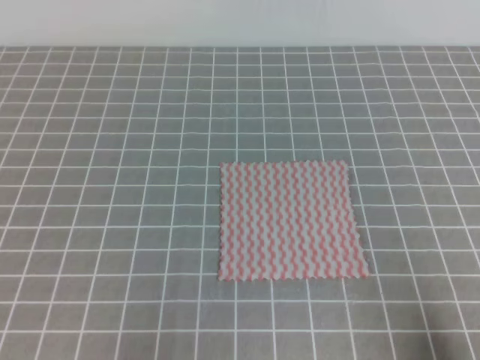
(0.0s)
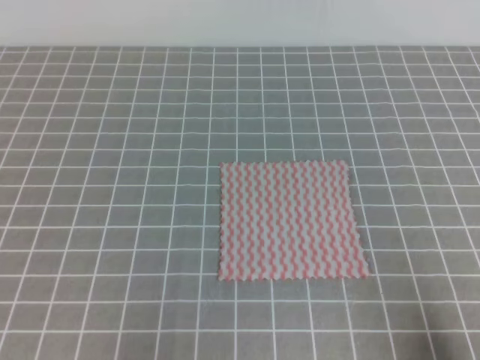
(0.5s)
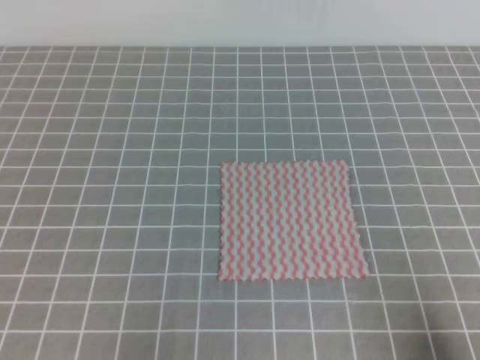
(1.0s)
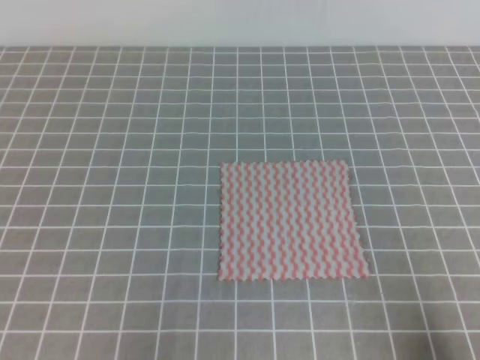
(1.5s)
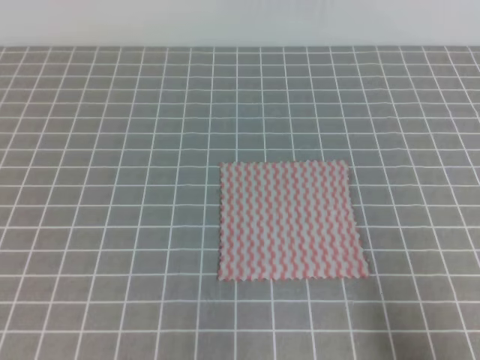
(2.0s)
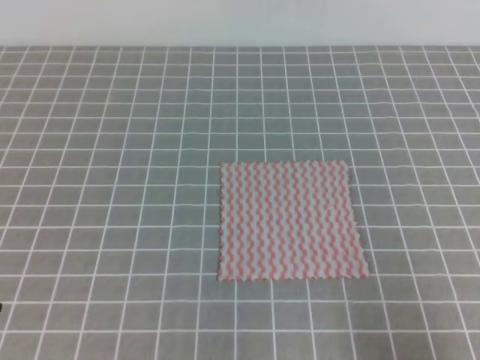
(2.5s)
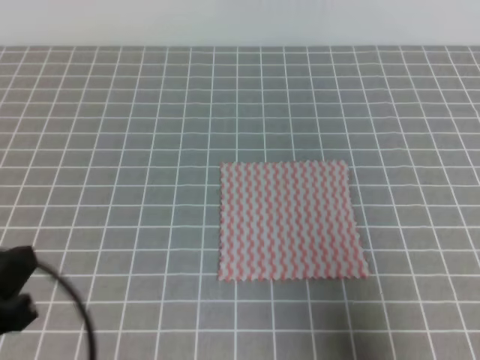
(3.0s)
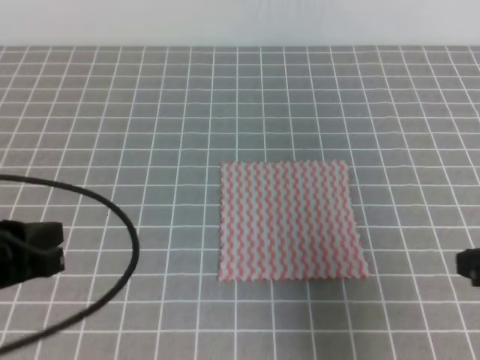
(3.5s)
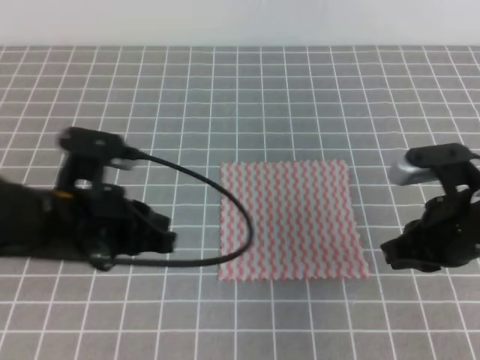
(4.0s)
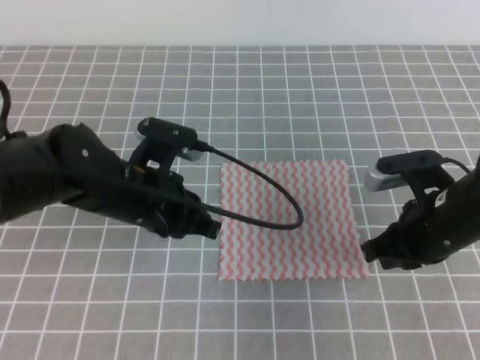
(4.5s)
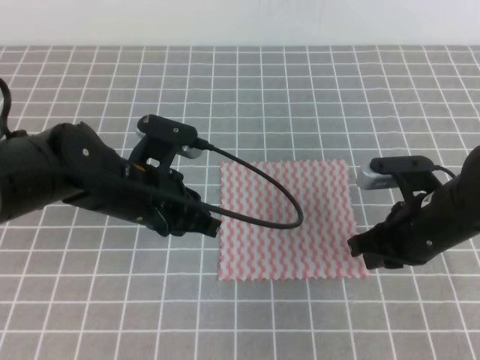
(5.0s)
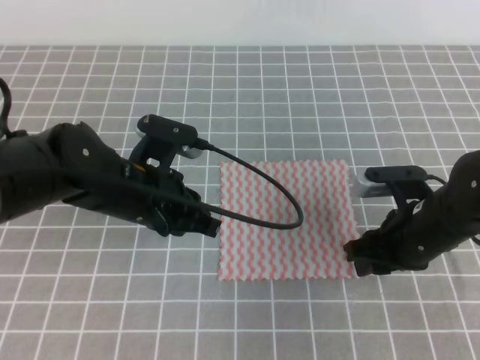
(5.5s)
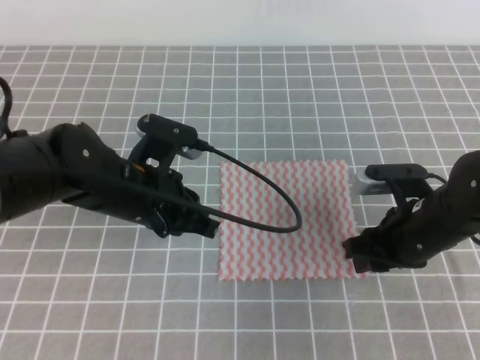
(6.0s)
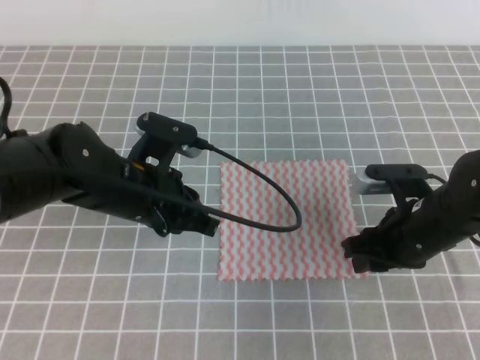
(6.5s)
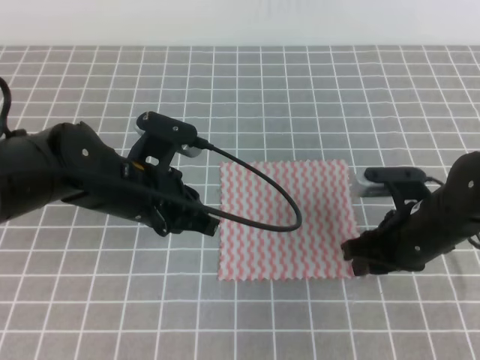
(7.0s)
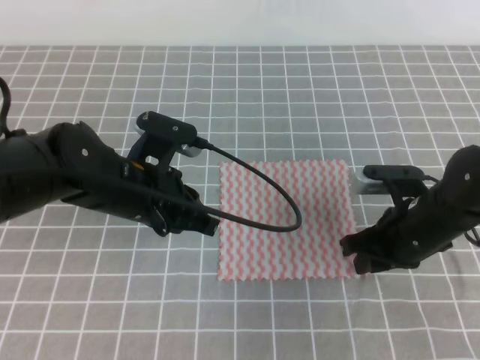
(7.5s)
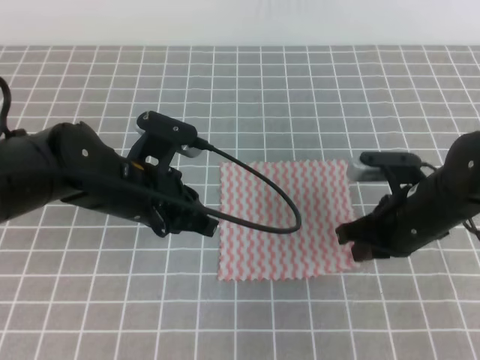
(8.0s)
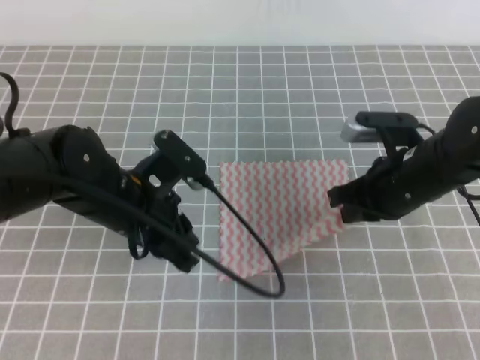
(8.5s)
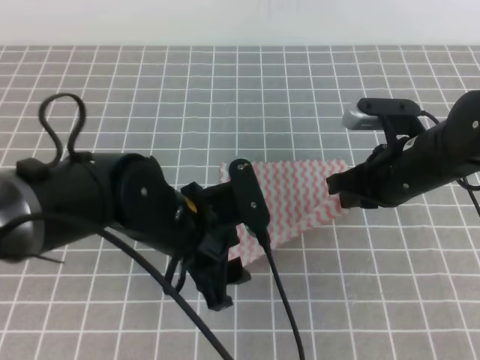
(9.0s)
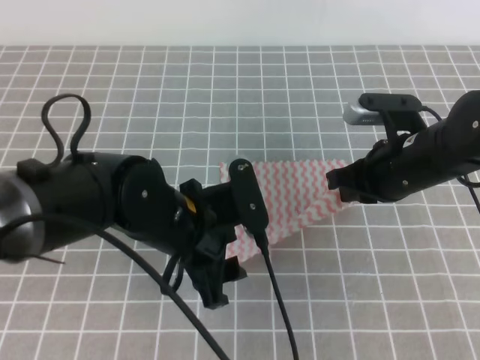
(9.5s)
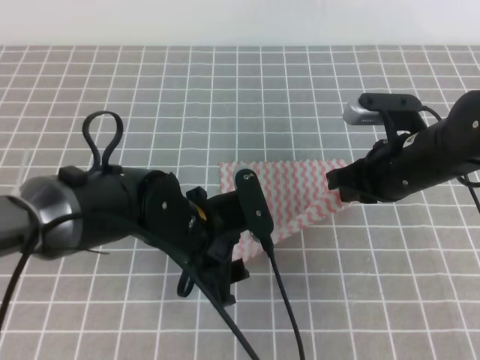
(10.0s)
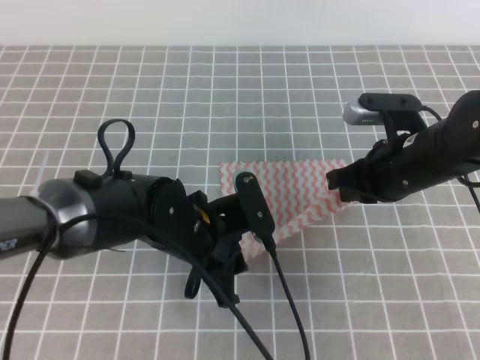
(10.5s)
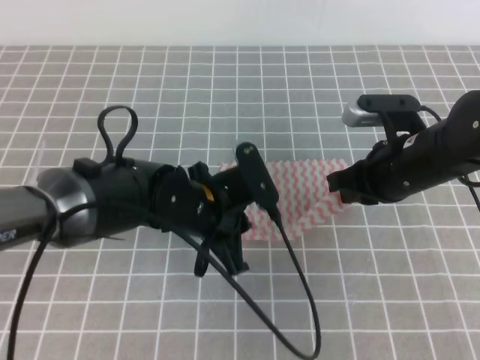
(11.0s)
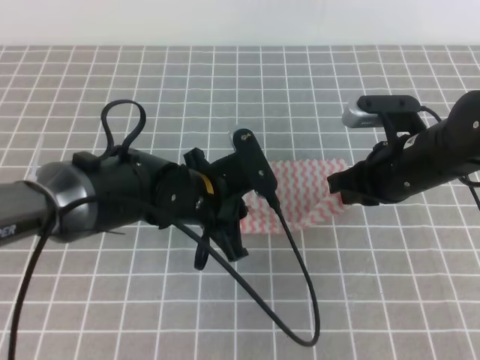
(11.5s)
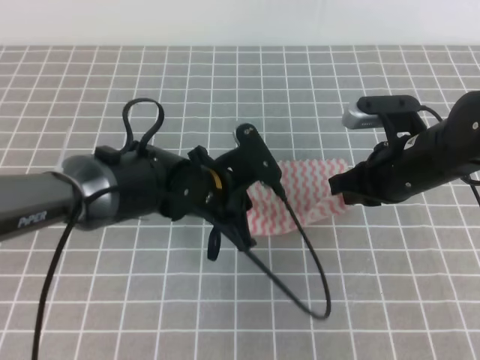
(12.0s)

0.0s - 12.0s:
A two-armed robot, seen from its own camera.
2.0s - 4.0s: The right gripper is displaced forward and to the left by about 20 cm; the left gripper moves forward and to the right, roughly 20 cm.
4.0s - 6.0s: The right gripper travels downward by approximately 5 cm, and opens up. The left gripper travels to the right and forward by roughly 10 cm.
6.0s - 8.0s: The right gripper closes up.
8.0s - 10.0s: The right gripper shifts by approximately 5 cm. The left gripper shifts approximately 5 cm to the right, and opens its fingers.
10.0s - 12.0s: The left gripper heads forward, covering some 5 cm, and closes.

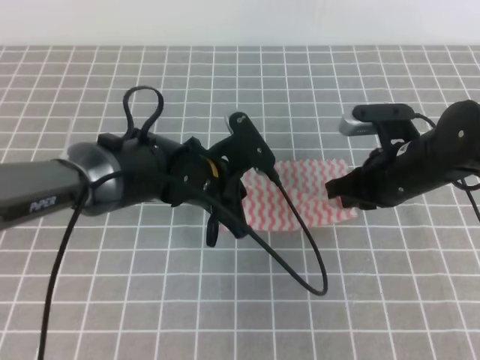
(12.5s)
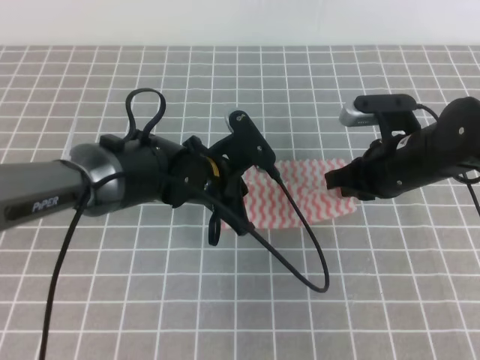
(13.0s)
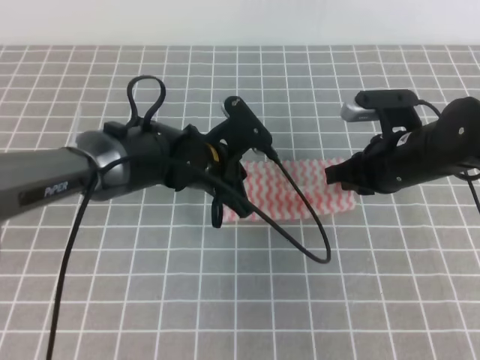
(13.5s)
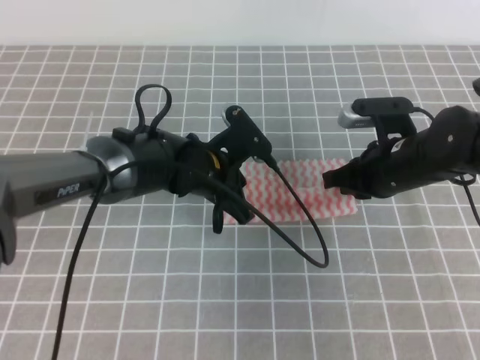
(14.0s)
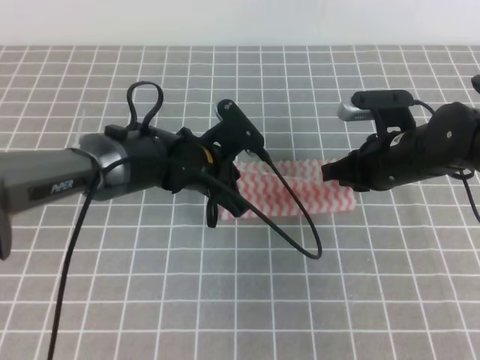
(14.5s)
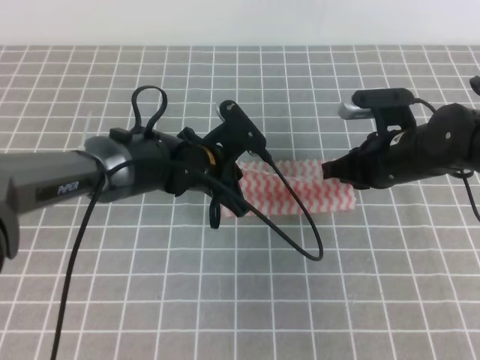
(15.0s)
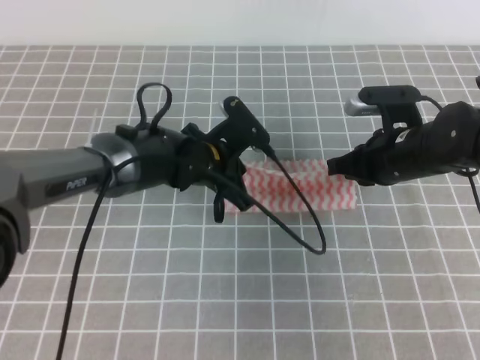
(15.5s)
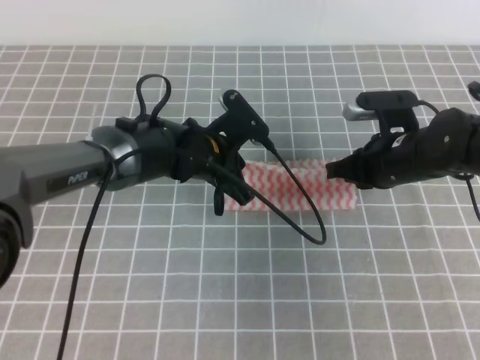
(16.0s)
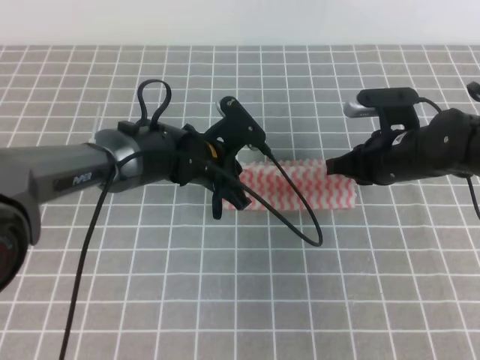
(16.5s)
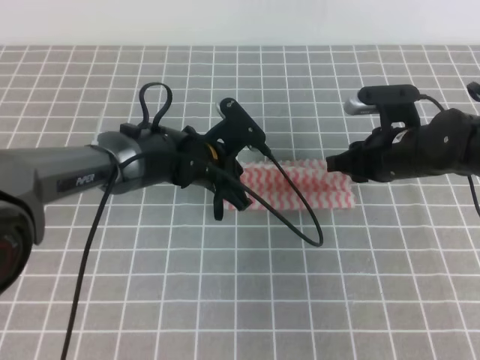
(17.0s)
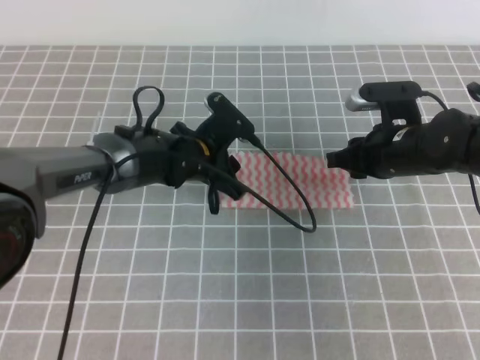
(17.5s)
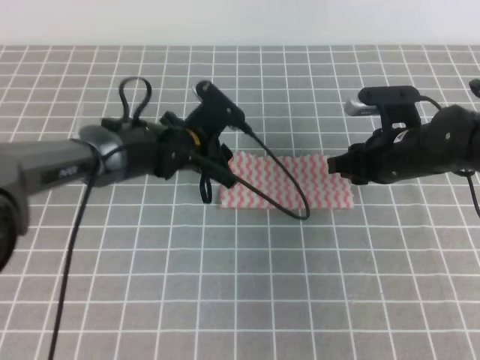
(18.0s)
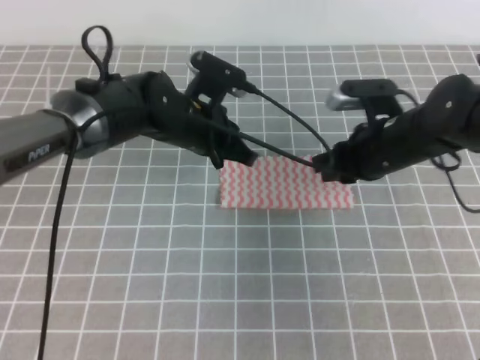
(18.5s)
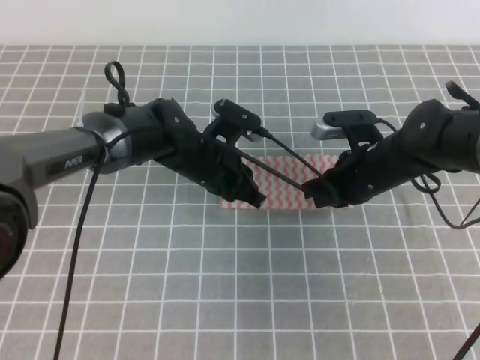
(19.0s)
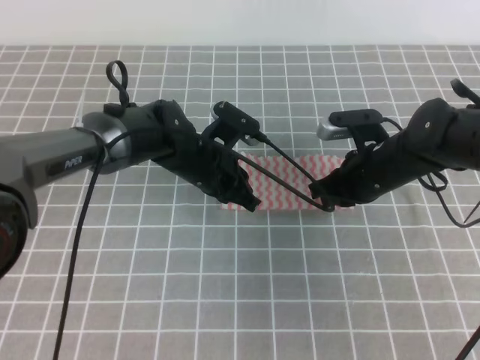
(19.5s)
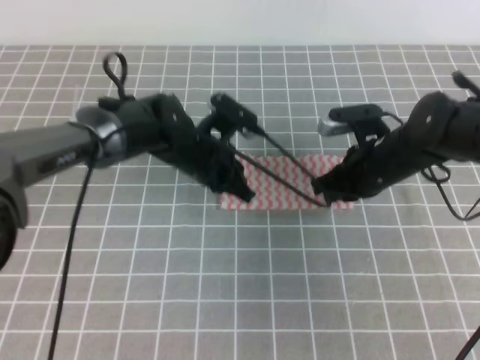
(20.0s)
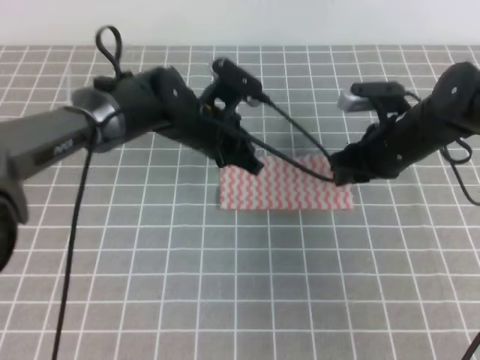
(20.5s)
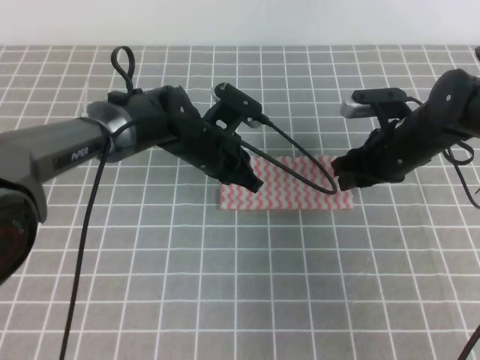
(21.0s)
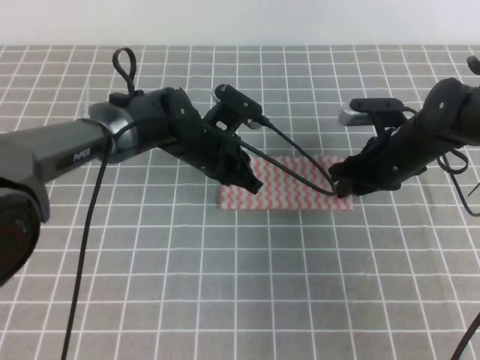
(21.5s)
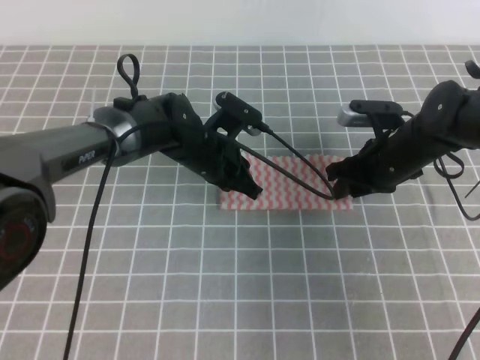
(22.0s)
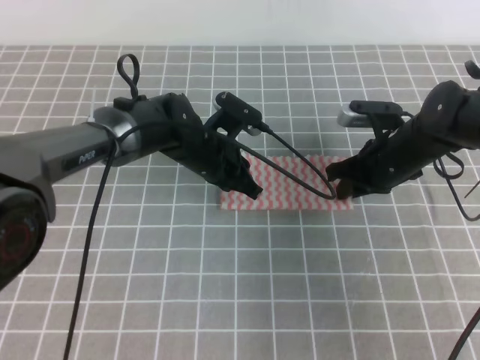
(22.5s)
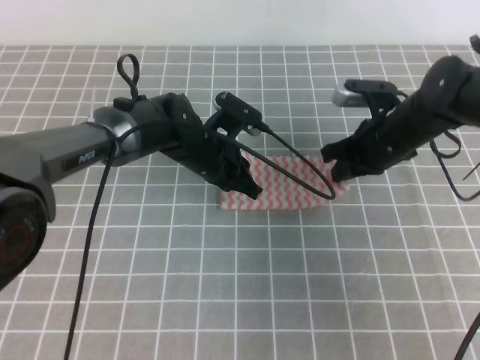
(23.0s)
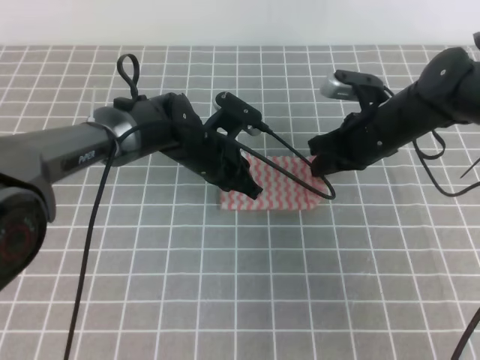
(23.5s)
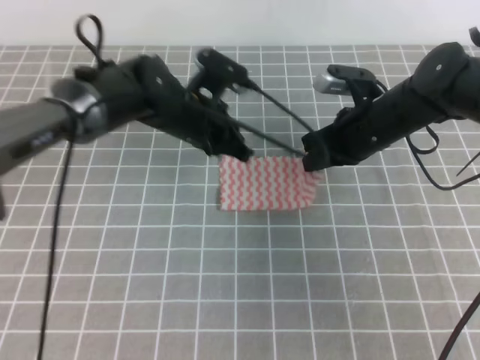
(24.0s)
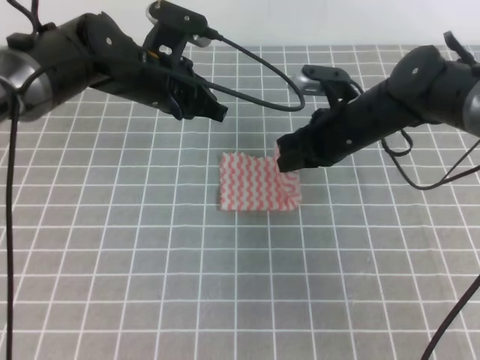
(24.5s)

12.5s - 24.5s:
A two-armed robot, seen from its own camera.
12.5s - 16.5s: The grippers move only a little.
16.5s - 18.5s: The right gripper opens, then closes once more; the left gripper opens and closes again.
18.5s - 20.5s: The right gripper opens up.
20.5s - 22.5s: The right gripper closes. Meanwhile the left gripper ends up about 5 cm from where it was.
22.5s - 24.5s: The right gripper travels to the left and upward by about 10 cm, while the left gripper travels upward and to the left by roughly 15 cm.

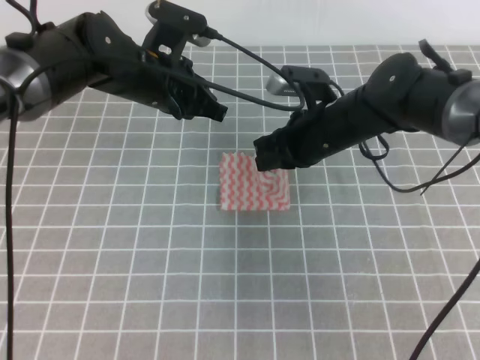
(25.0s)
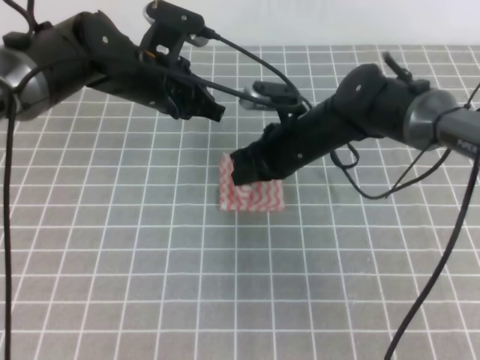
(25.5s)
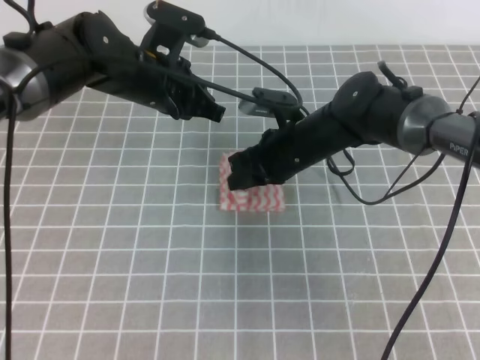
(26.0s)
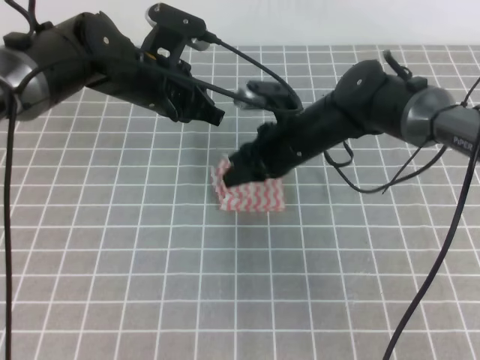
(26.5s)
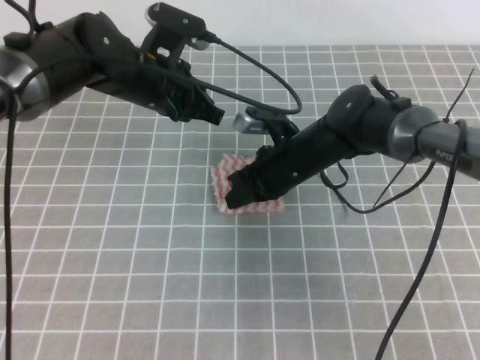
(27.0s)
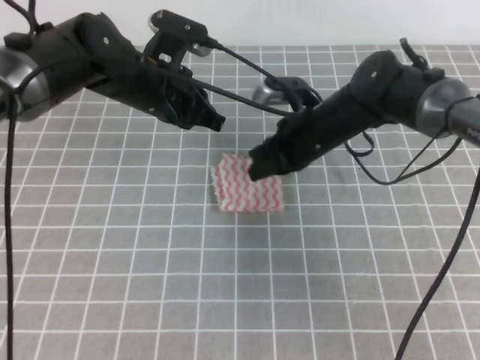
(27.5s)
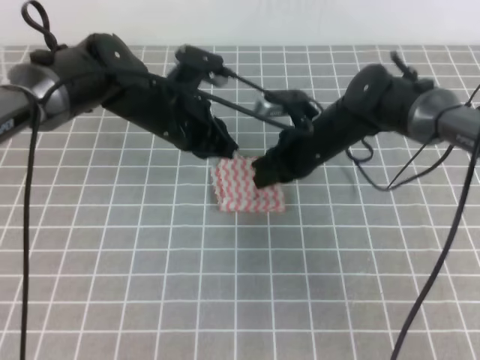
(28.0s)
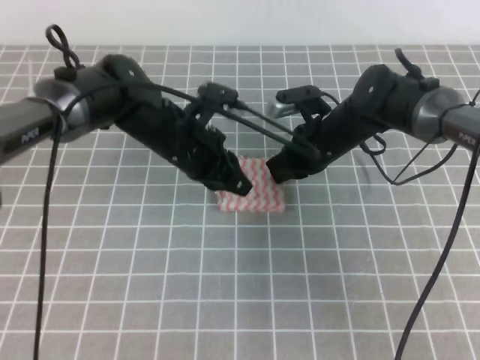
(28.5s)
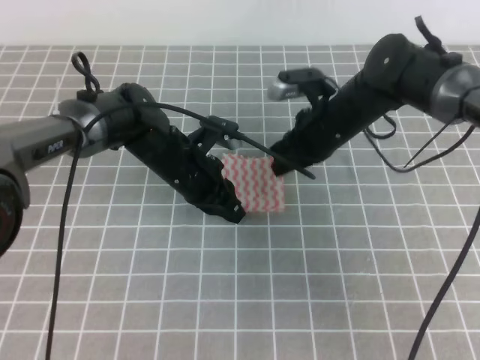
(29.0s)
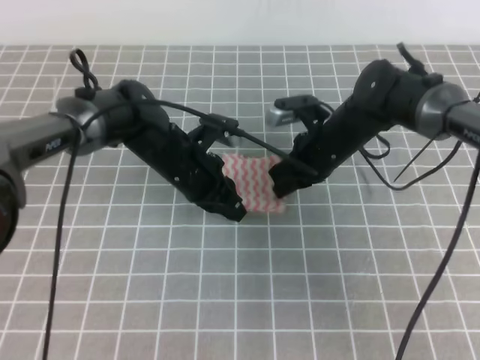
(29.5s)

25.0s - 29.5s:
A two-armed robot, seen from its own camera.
25.0s - 27.0s: The right gripper changes place by some 5 cm, and opens, then closes again.
27.0s - 29.5s: The left gripper heads downward, covering approximately 10 cm. Meanwhile the right gripper moves about 5 cm.
